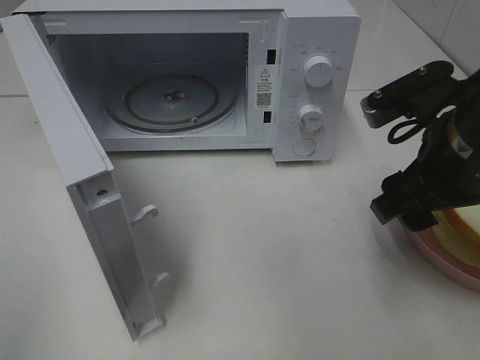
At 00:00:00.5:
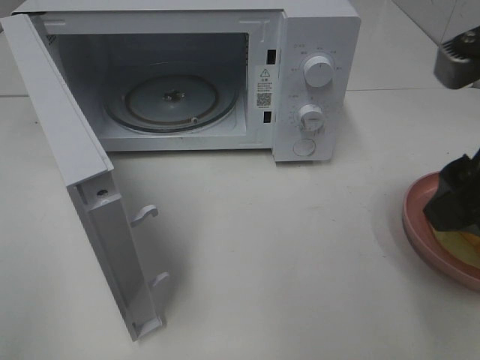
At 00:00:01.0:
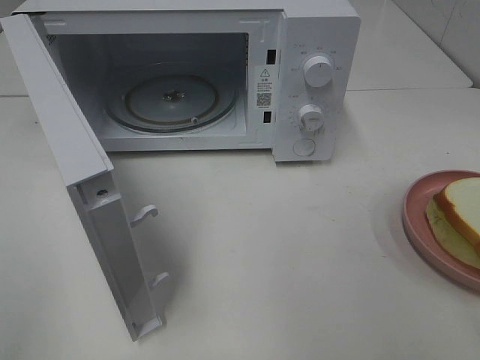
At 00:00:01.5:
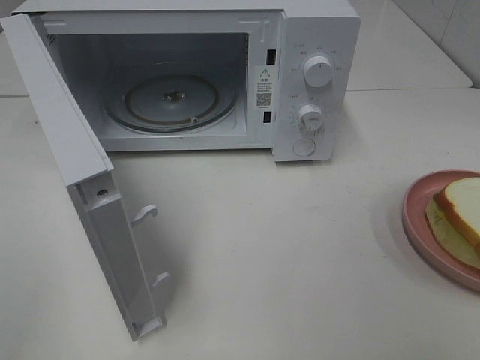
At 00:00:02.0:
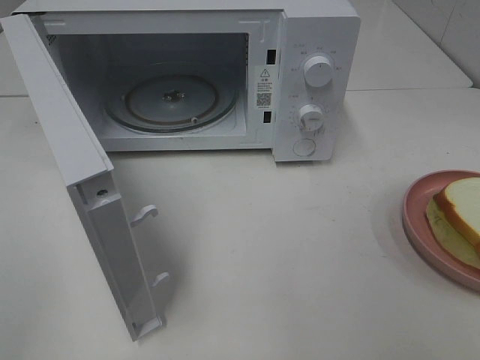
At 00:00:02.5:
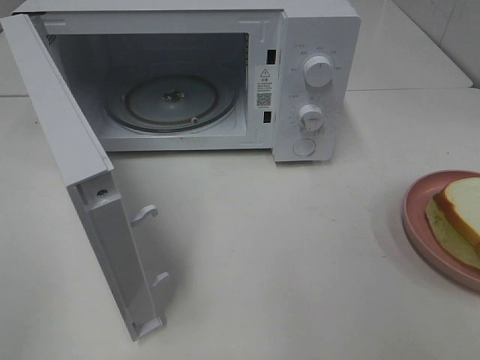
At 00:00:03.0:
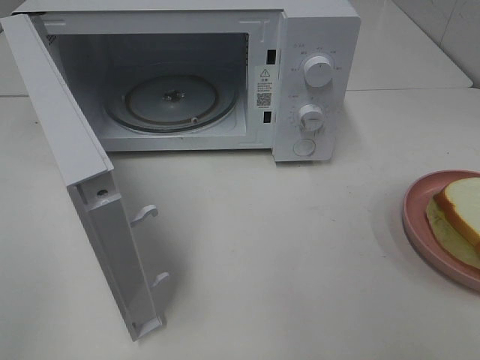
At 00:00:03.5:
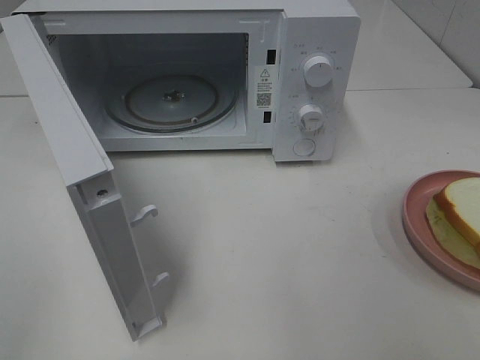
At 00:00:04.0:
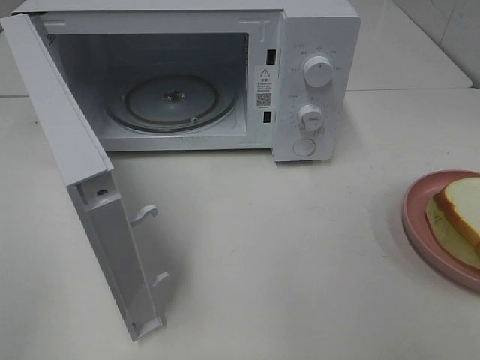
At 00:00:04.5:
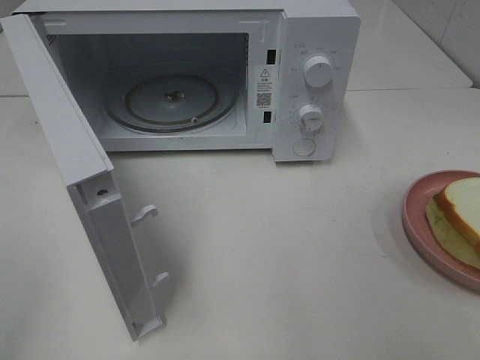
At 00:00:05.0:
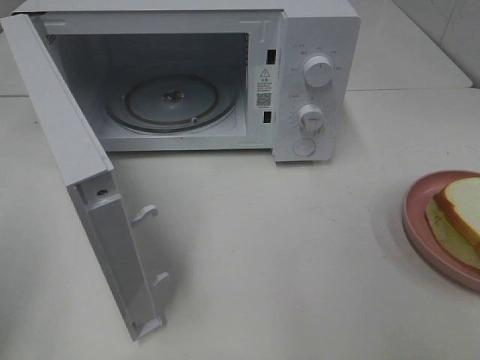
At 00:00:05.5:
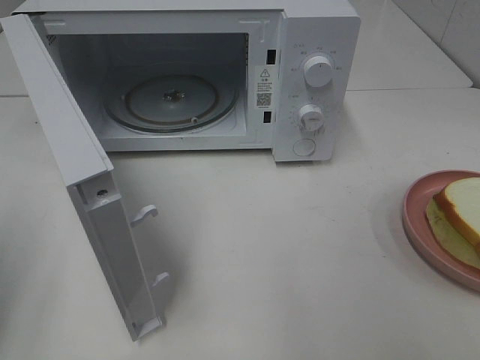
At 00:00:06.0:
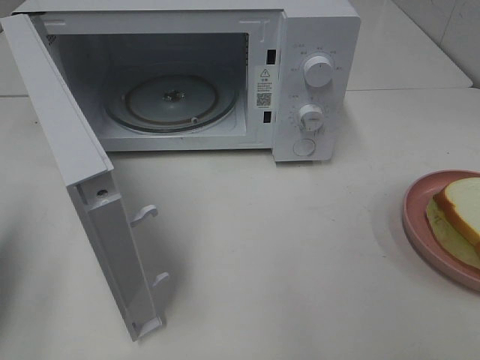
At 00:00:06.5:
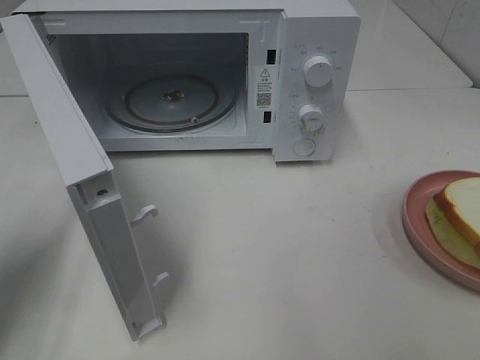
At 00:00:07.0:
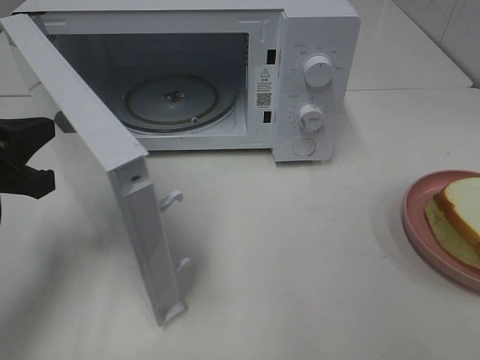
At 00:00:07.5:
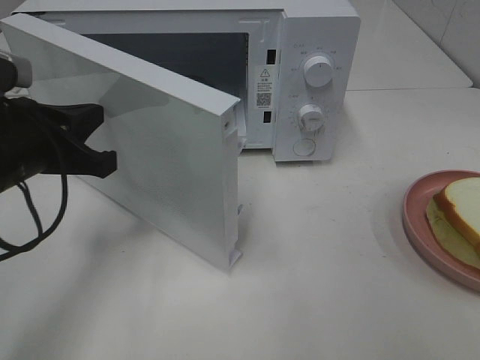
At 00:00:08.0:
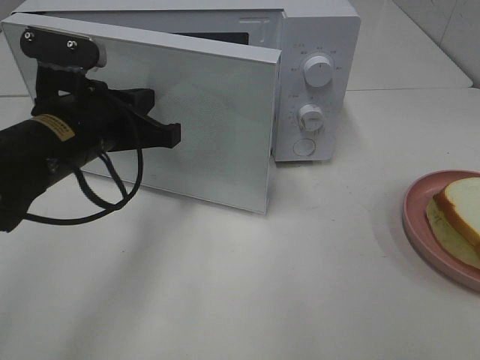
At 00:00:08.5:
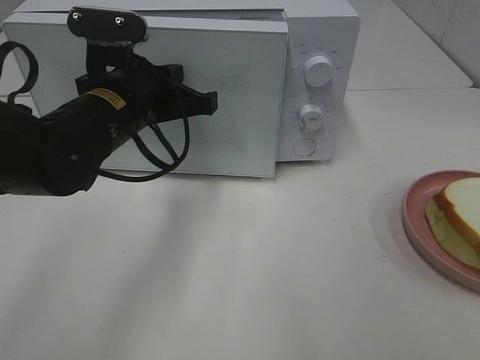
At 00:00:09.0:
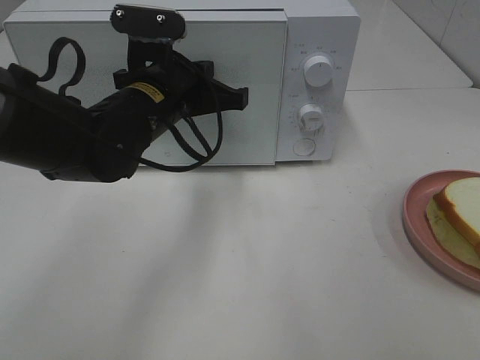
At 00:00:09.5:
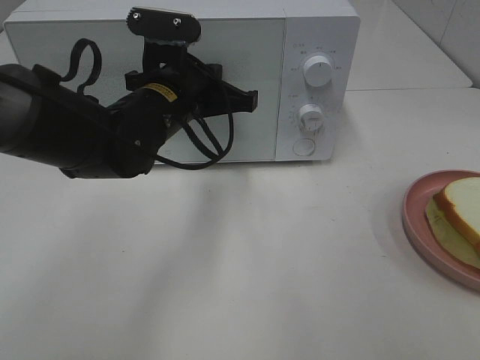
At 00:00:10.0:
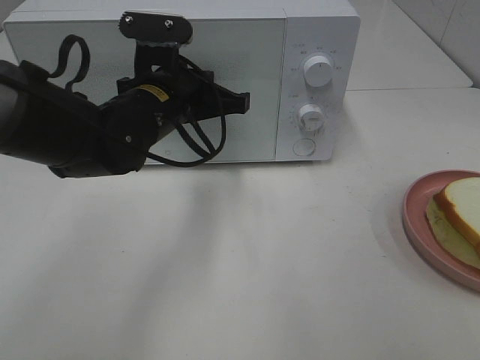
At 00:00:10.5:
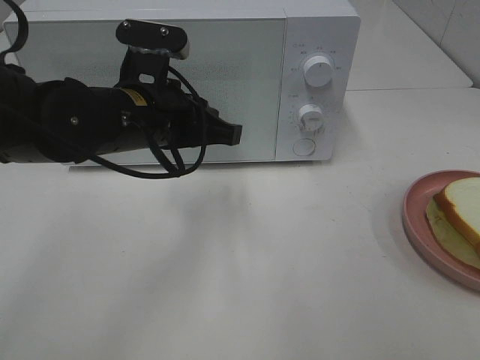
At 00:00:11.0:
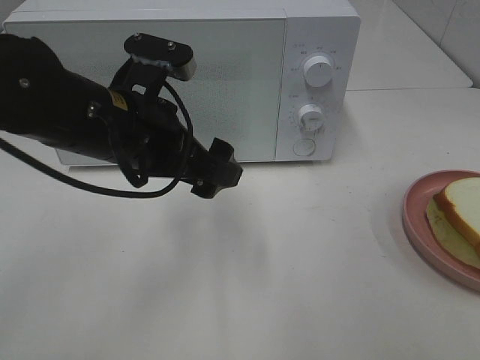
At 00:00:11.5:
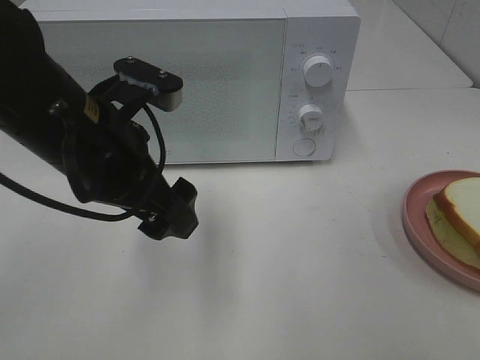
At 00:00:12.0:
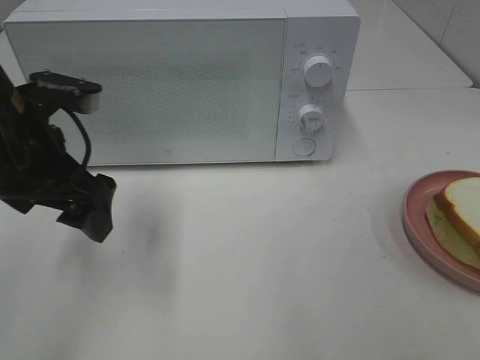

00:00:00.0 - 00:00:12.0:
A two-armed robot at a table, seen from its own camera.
Task of the whole recording: Heat Sandwich.
Step, 00:00:00.5 - 00:00:10.5: Left hand: close the microwave door.
00:00:00.0 - 00:00:02.0: The right gripper shifts roughly 25 cm backward and to the right.
00:00:04.0 - 00:00:06.0: The left gripper goes some 15 cm forward, and closes its fingers.
00:00:06.0 - 00:00:08.0: The left gripper shifts roughly 20 cm to the right and forward.
00:00:08.0 - 00:00:10.0: The left gripper travels to the right and forward by roughly 10 cm.
00:00:10.0 - 00:00:12.0: The left gripper shifts roughly 15 cm to the left and backward, and opens.

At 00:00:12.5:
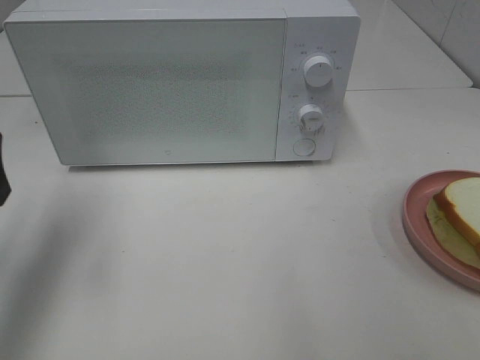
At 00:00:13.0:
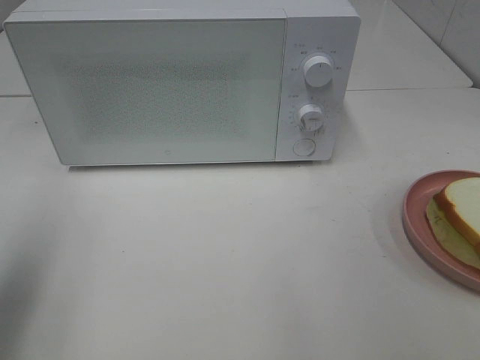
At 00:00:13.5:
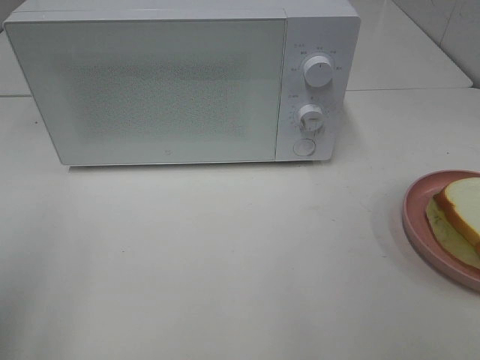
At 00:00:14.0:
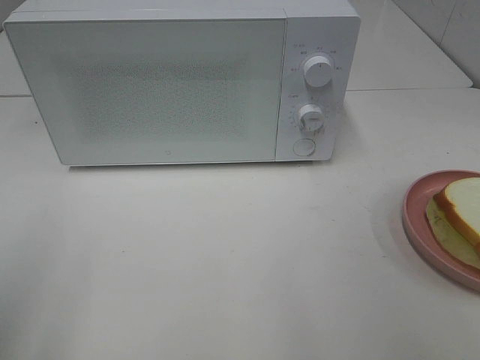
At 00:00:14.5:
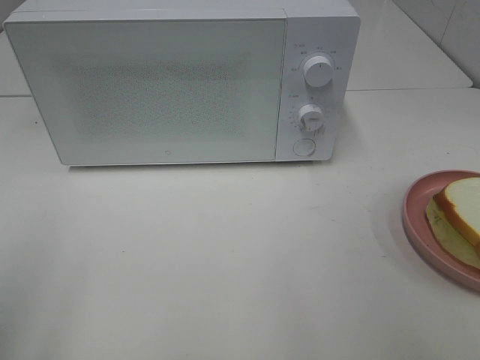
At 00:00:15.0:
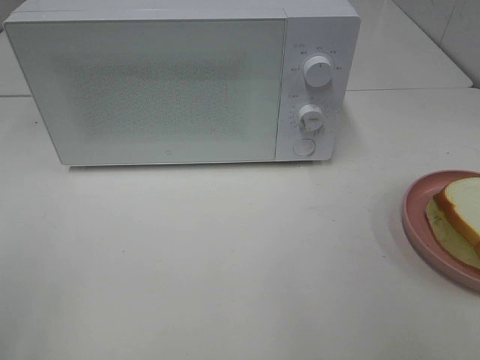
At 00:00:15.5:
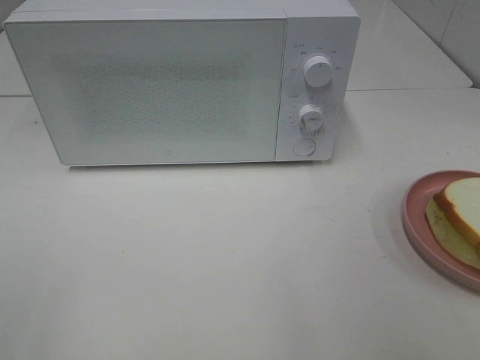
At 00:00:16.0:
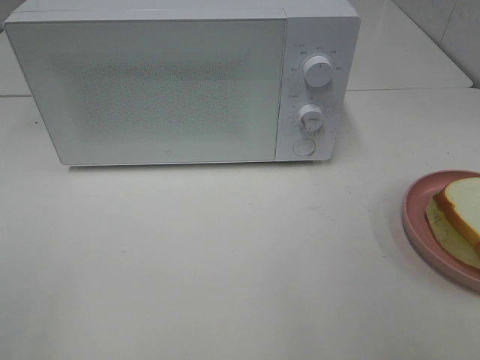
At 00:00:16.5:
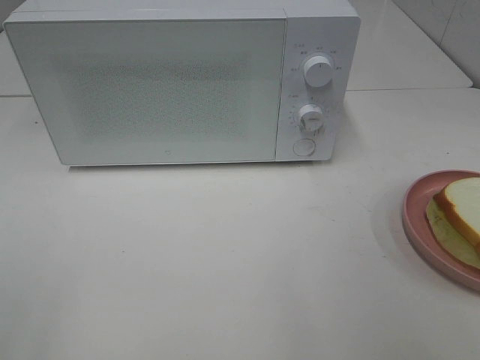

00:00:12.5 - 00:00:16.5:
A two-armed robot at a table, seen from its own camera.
Task of the whole recording: Heat Sandwich.
00:00:12.5 - 00:00:14.5: The left gripper travels backward by roughly 20 cm.
